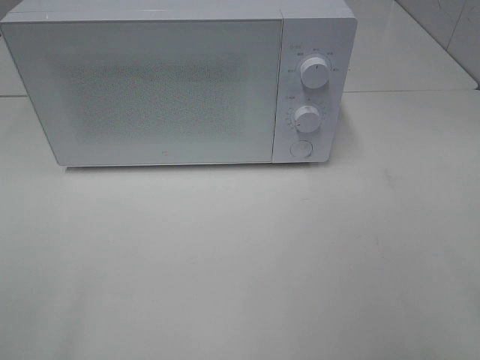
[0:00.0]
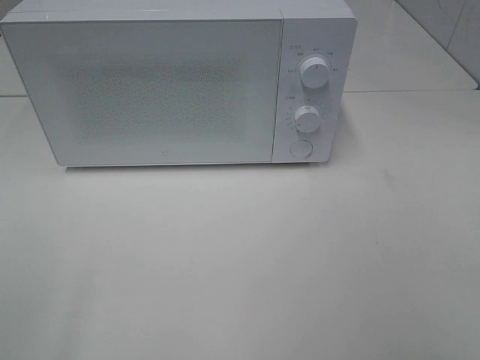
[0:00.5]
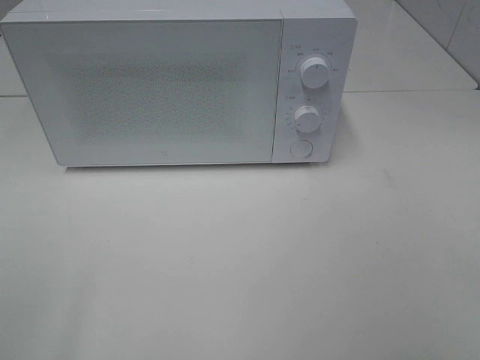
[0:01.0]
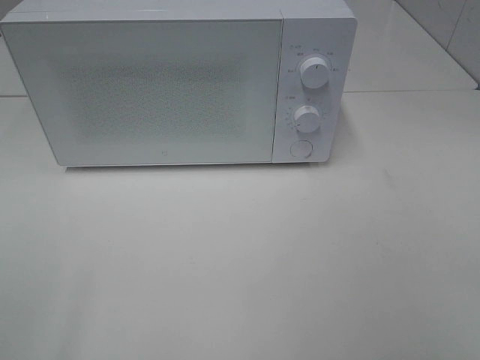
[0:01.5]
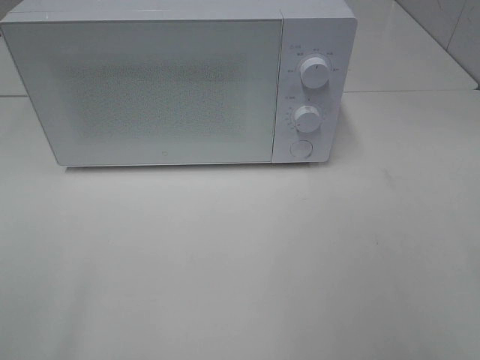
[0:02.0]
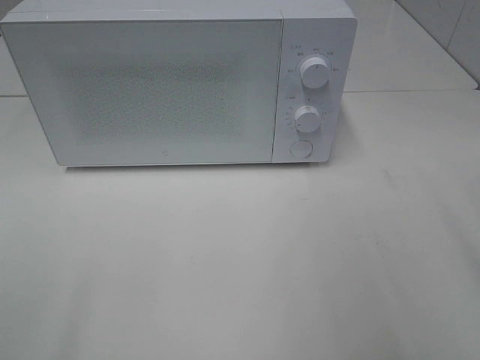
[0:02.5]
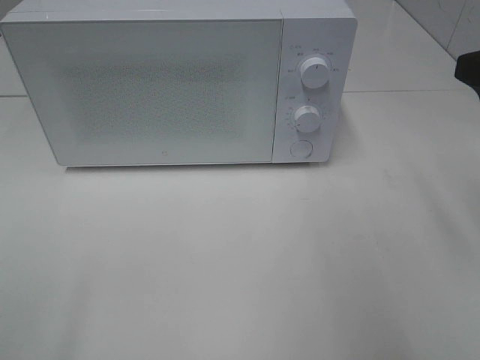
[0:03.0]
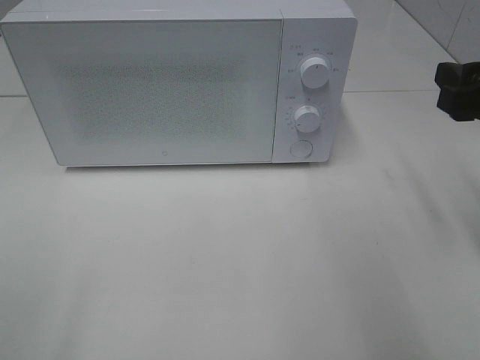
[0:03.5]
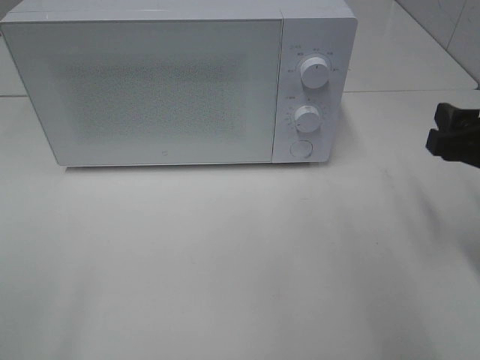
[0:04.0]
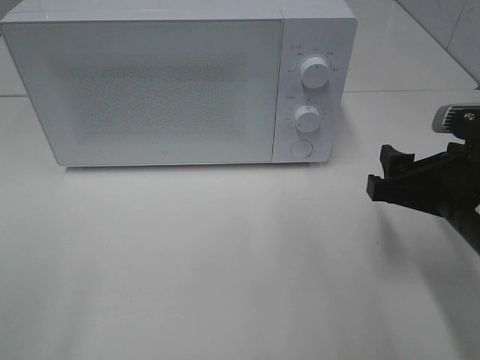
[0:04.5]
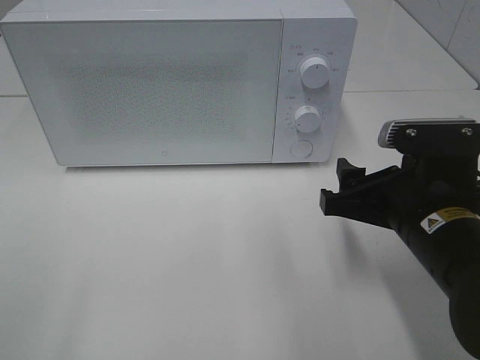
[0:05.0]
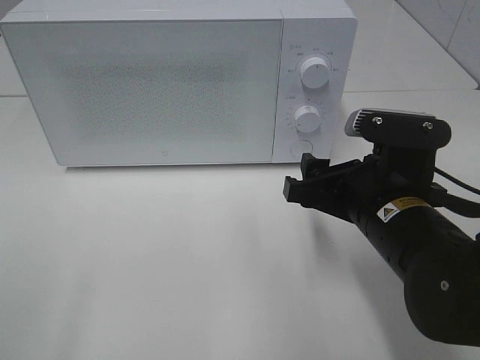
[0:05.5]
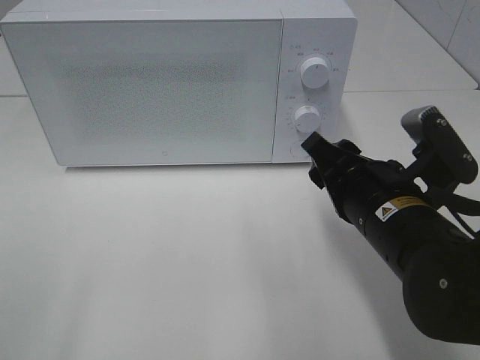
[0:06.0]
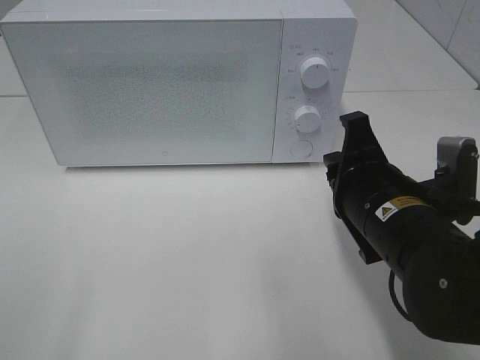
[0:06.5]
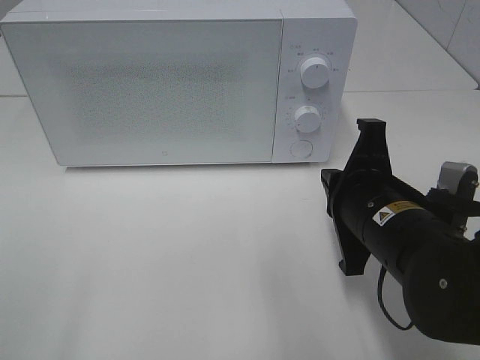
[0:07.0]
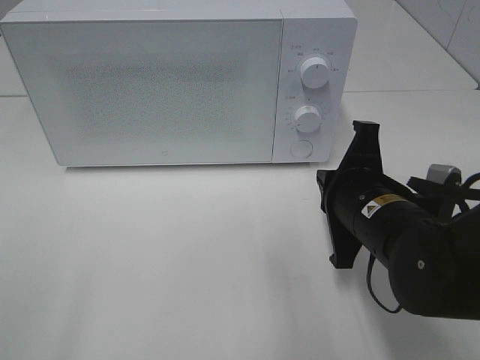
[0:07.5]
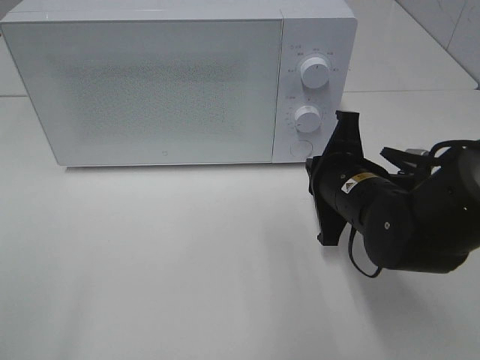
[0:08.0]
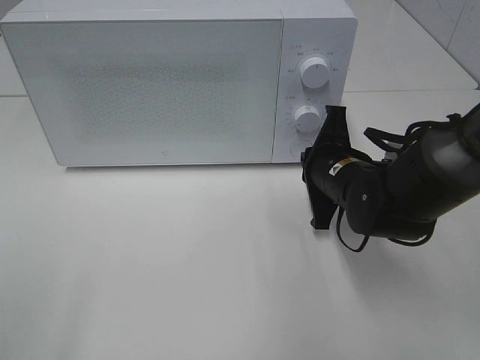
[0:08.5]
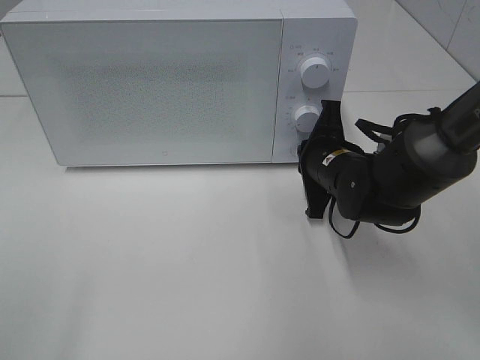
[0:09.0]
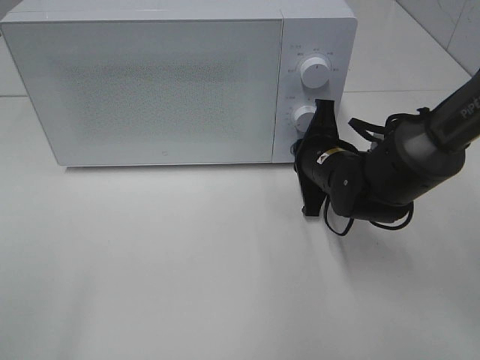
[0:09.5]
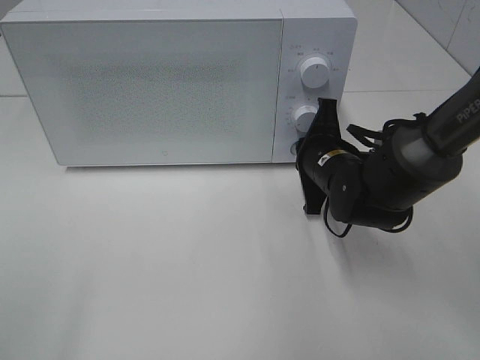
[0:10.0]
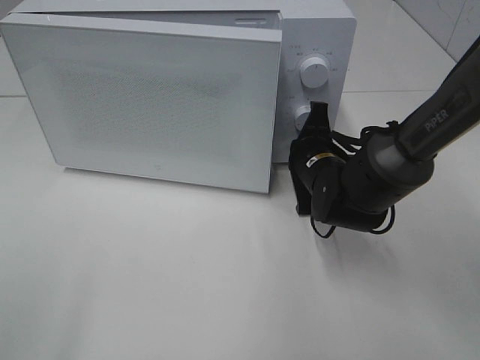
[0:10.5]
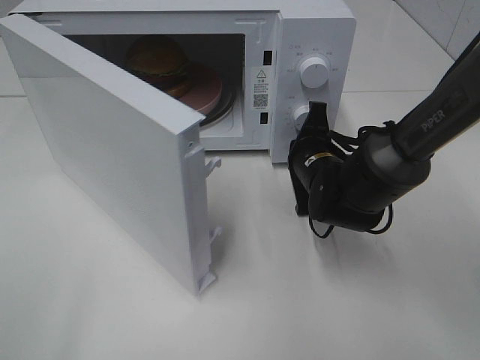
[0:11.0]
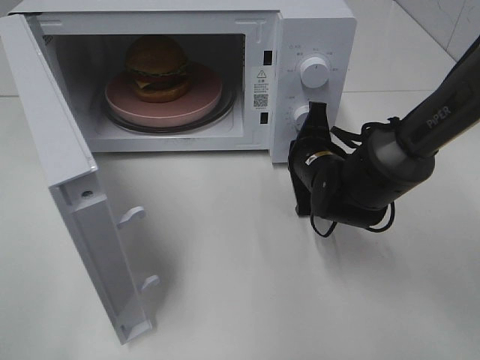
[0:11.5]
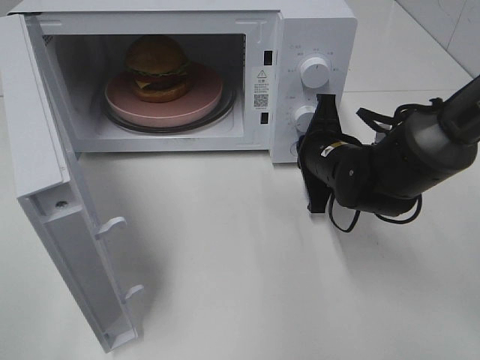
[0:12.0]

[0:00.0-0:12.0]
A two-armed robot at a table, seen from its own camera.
Task of the whole recording: Heat the burger.
0:02.0 to 0:04.0: The right gripper shifts approximately 20 cm forward and downward.
0:04.0 to 0:06.0: The right gripper goes approximately 15 cm to the left.
0:06.0 to 0:08.0: The right gripper moves forward, some 5 cm, and closes up.
0:08.0 to 0:10.0: The right gripper is displaced forward by roughly 5 cm.

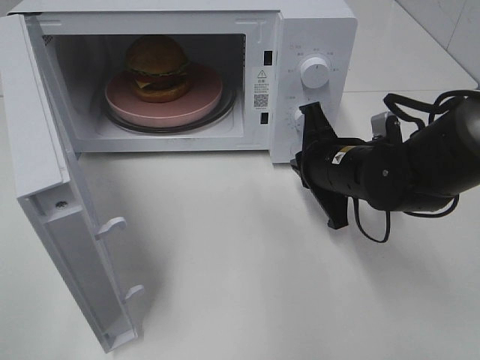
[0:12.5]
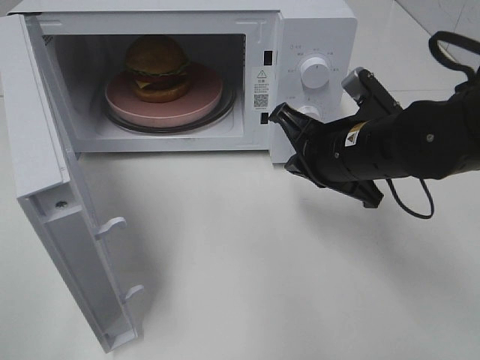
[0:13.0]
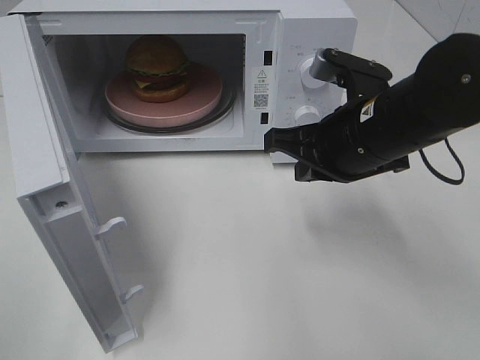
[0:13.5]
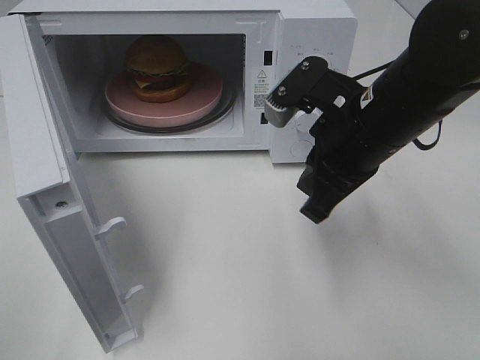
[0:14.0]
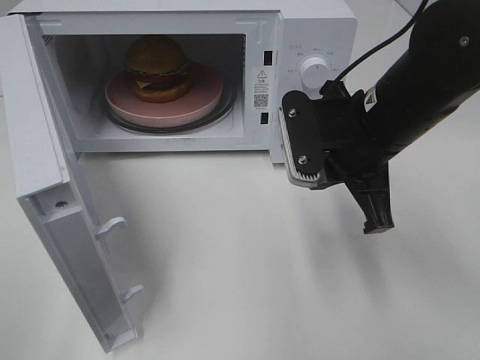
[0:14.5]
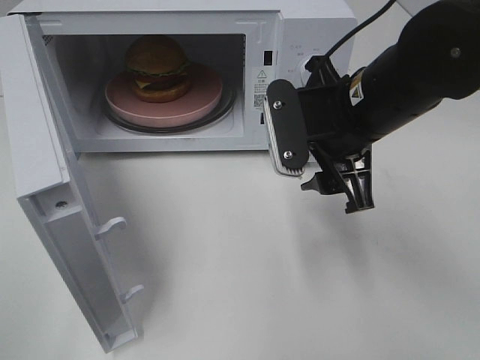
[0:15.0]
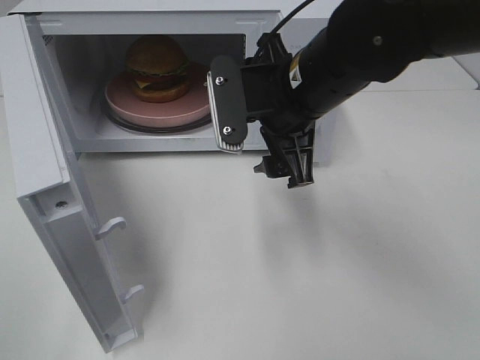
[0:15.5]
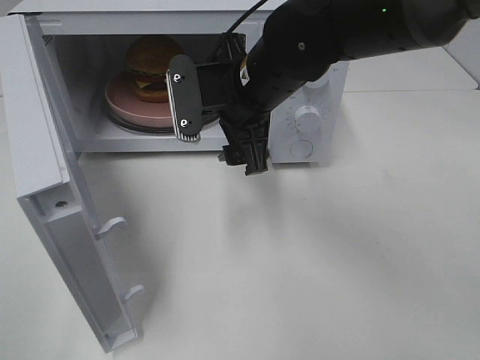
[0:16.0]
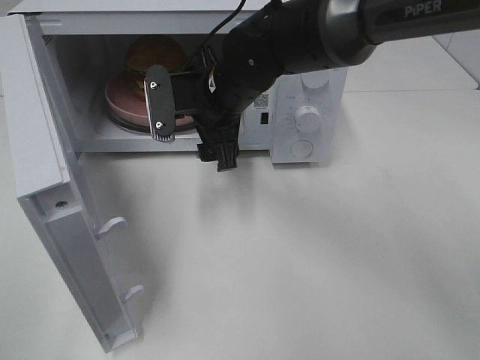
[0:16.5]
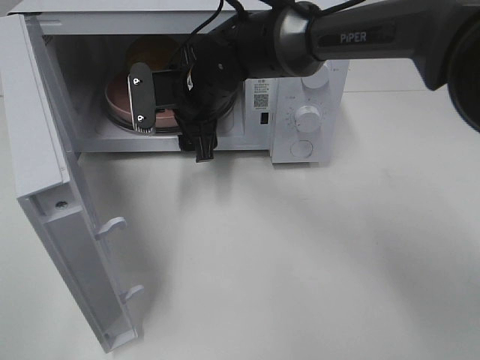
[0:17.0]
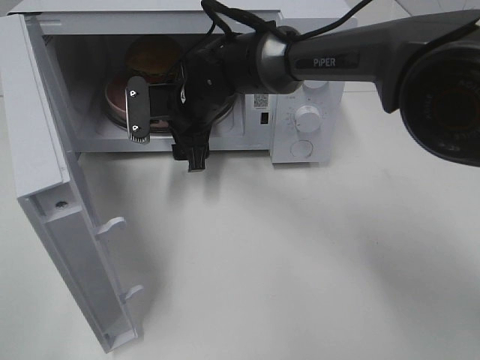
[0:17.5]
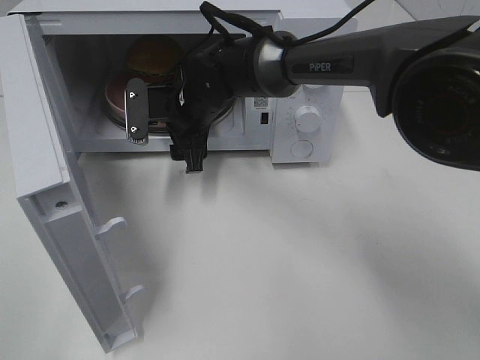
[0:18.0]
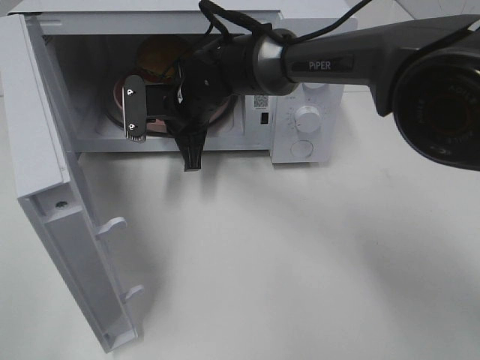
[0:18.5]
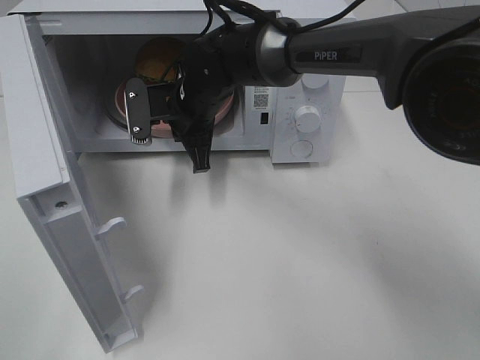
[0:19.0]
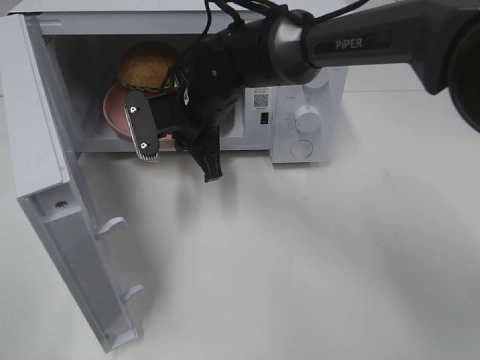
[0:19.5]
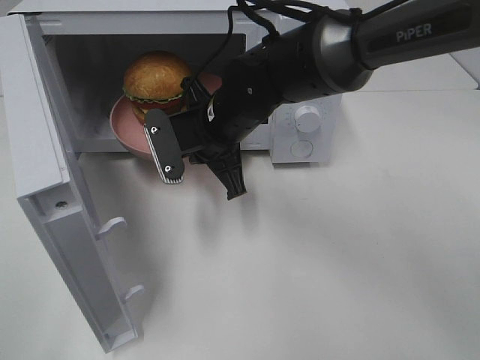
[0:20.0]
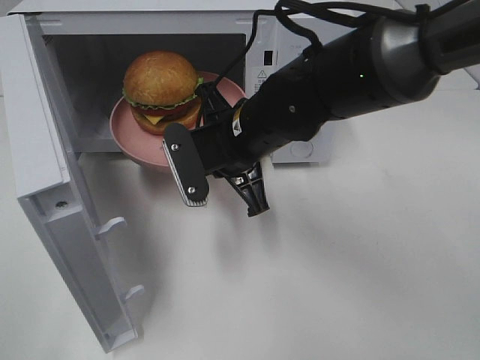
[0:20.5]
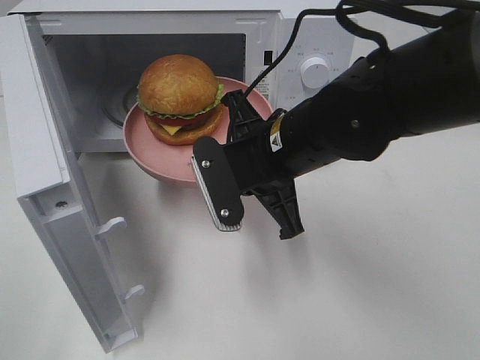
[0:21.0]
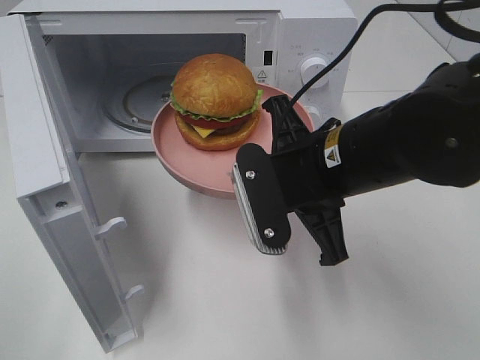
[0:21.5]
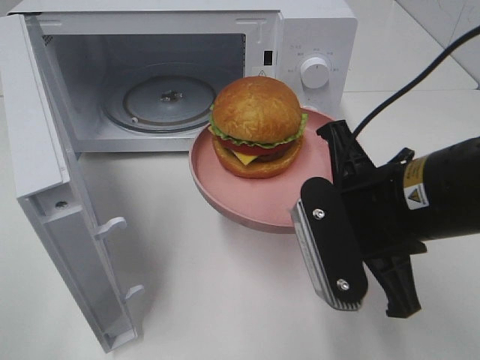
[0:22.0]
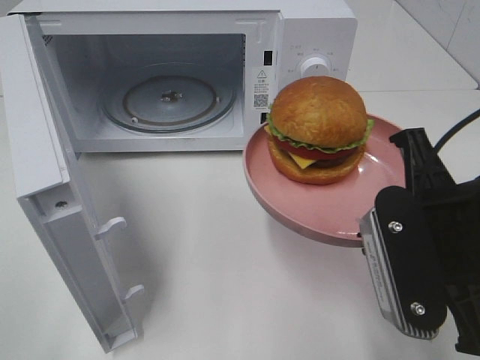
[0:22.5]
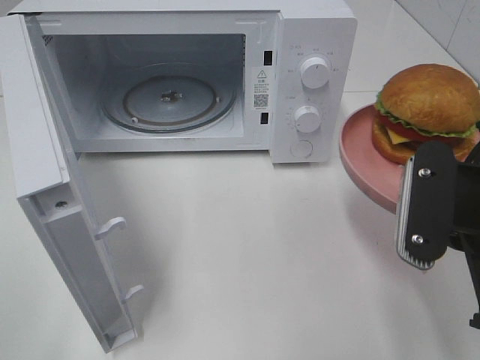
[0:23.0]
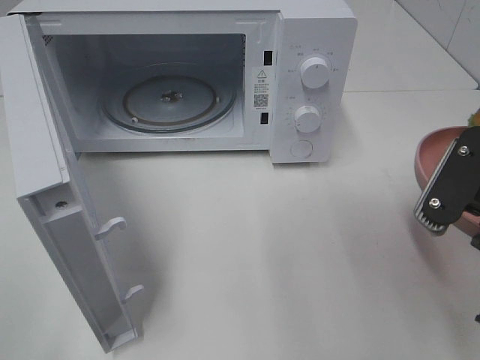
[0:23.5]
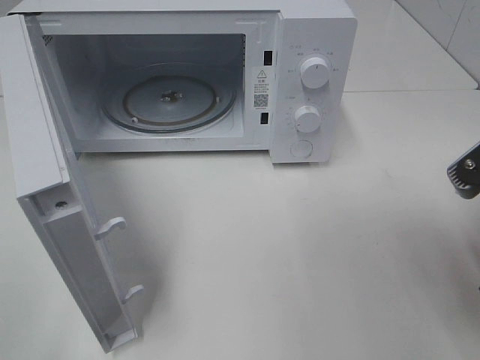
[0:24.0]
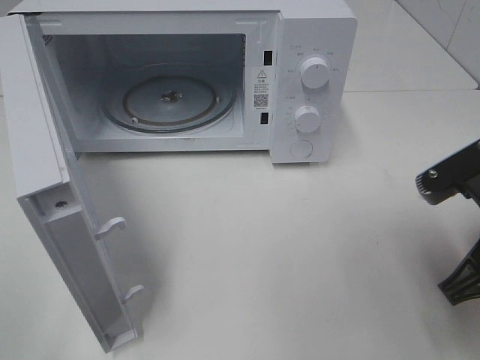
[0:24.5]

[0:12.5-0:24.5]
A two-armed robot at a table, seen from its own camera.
Task of the whole recording: Heat the burger.
Step, 0:12.5 to 0:18.5: Right hand: grab the plate with the hamburger.
0:12.5 to 0:14.5: The right gripper moves upward, approximately 10 cm.
0:14.5 to 0:16.5: The right gripper heads to the left and forward, covering roughly 15 cm, and opens its fingers.
0:16.5 to 0:18.5: The right gripper shifts by some 5 cm, and closes up.
0:18.5 to 0:20.5: The right gripper is displaced backward and to the right by some 15 cm.
0:20.5 to 0:22.5: The right gripper goes approximately 20 cm backward and to the right.
0:22.5 to 0:24.5: The right gripper shifts by approximately 5 cm.

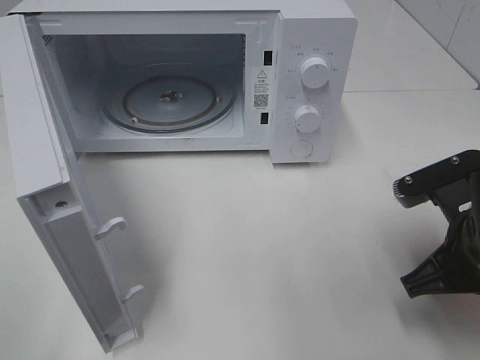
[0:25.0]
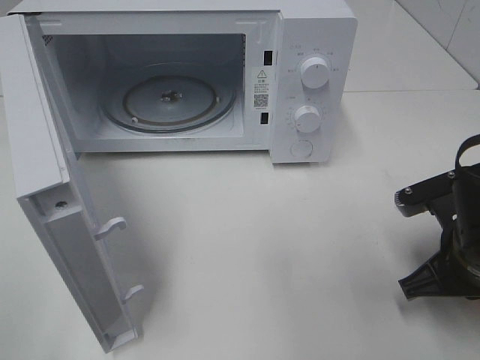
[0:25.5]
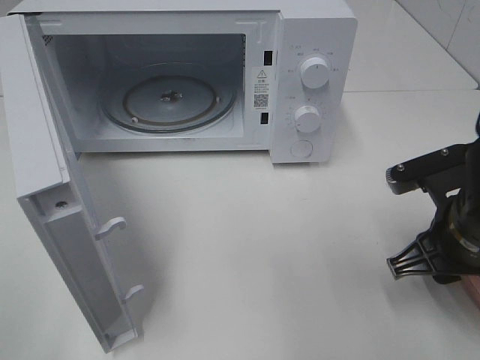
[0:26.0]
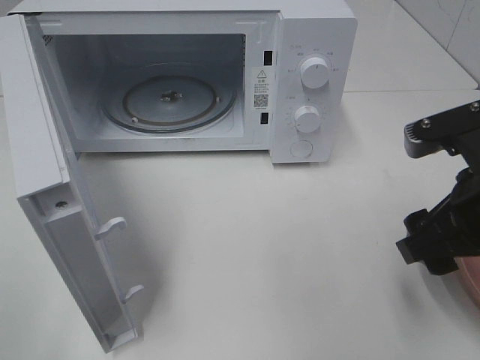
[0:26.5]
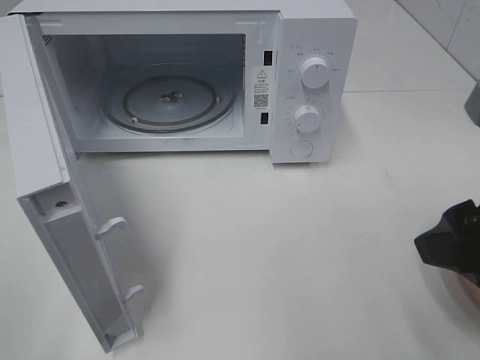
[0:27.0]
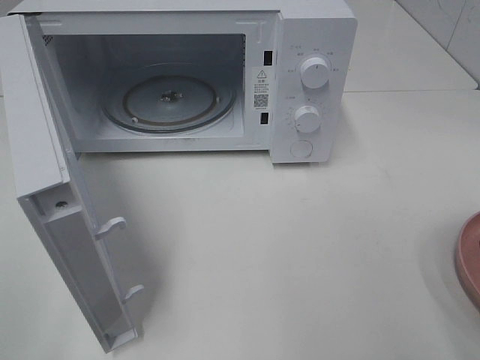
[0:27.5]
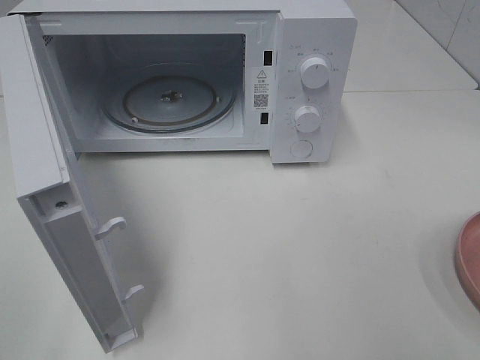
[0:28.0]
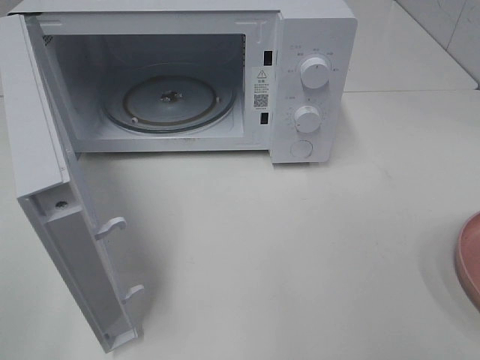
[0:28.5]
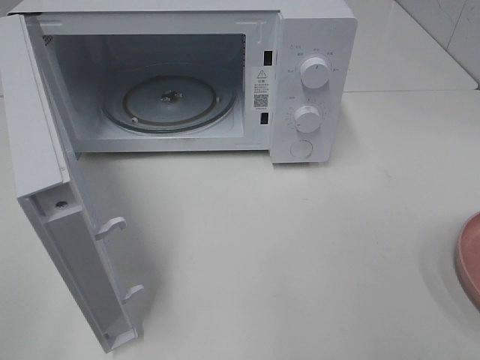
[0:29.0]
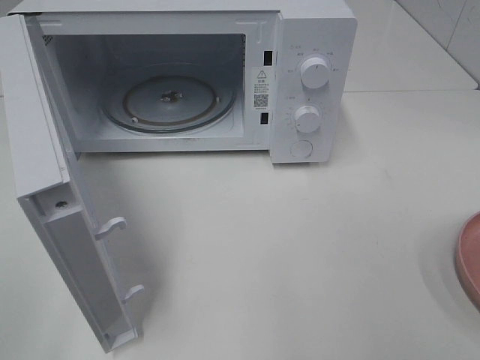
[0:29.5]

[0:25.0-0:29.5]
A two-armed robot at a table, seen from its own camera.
Task of the whole recording: Heat the burger.
0:25.0 to 0:27.0: The right gripper travels upward by about 10 cm, and opens.
0:27.0 to 0:29.5: The right gripper travels backward and to the right by about 15 cm.
